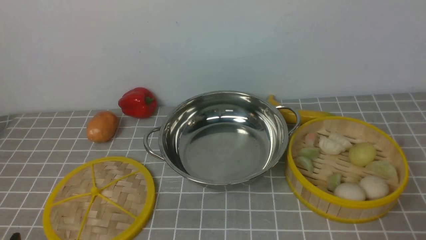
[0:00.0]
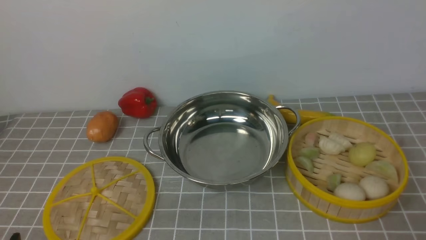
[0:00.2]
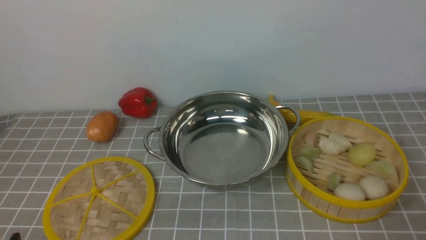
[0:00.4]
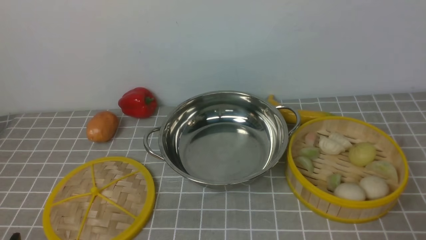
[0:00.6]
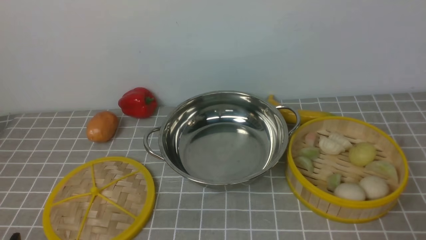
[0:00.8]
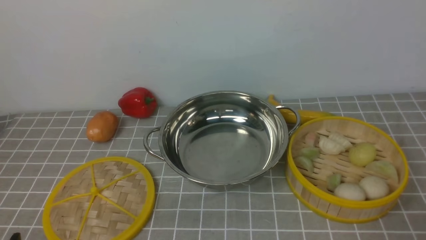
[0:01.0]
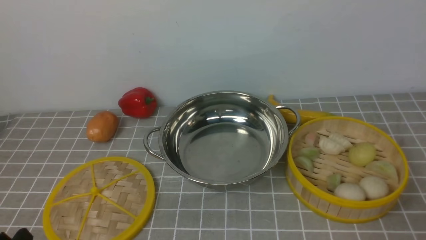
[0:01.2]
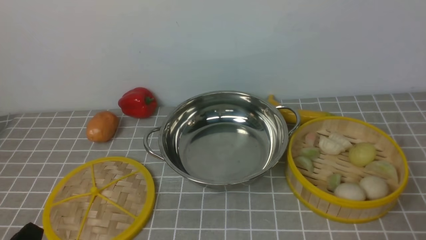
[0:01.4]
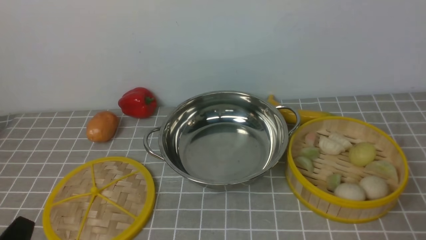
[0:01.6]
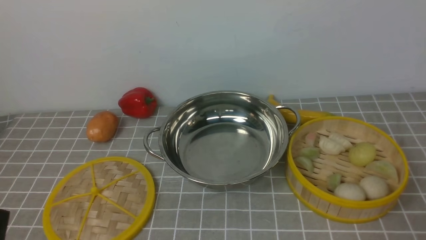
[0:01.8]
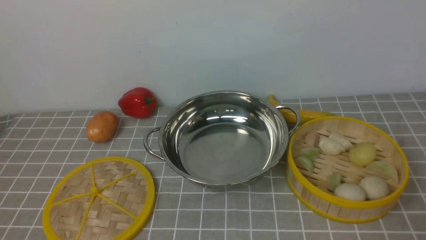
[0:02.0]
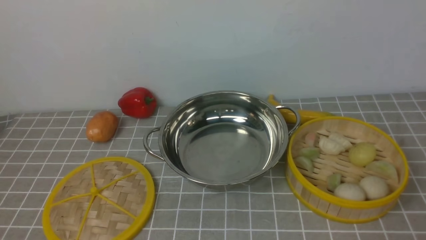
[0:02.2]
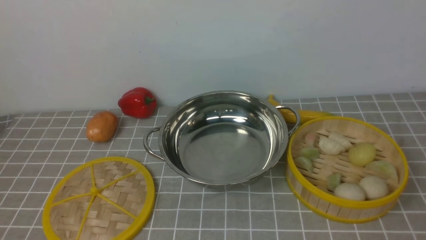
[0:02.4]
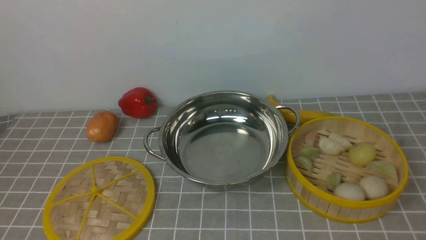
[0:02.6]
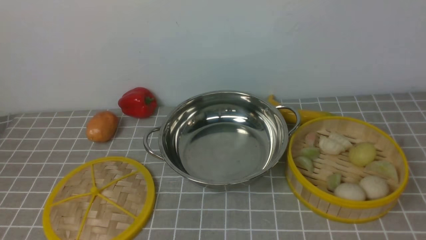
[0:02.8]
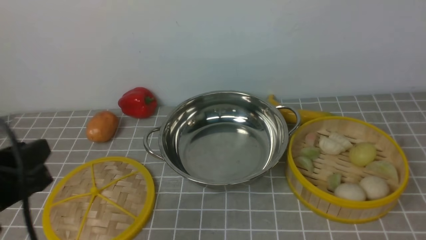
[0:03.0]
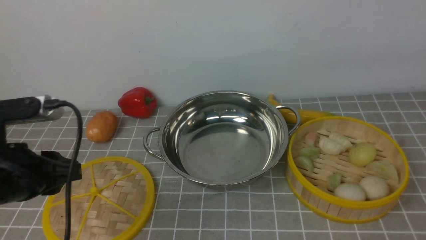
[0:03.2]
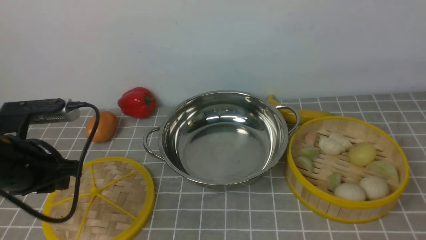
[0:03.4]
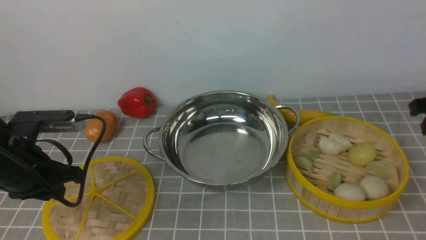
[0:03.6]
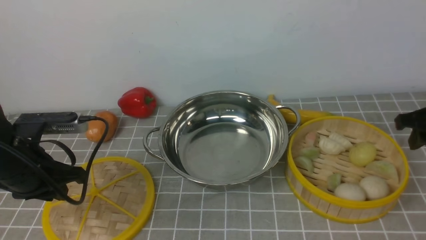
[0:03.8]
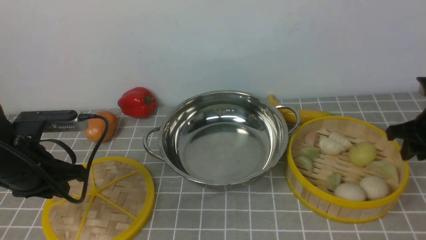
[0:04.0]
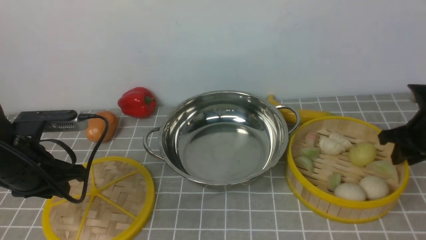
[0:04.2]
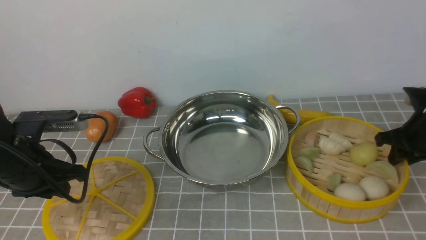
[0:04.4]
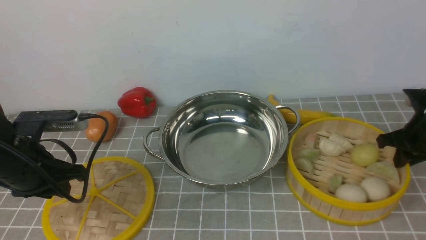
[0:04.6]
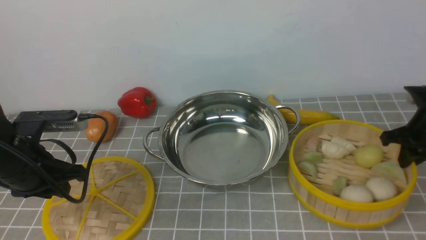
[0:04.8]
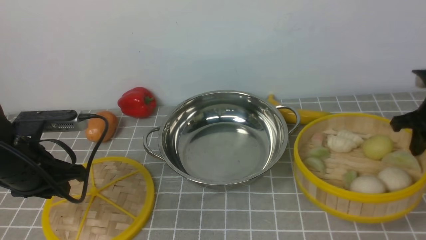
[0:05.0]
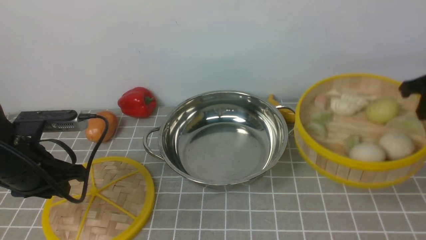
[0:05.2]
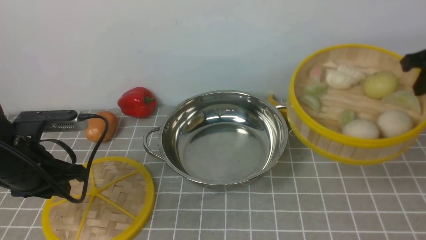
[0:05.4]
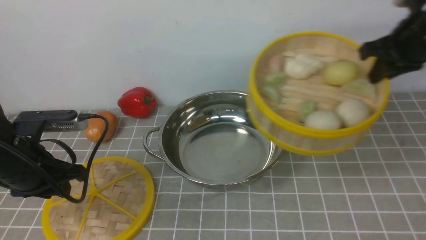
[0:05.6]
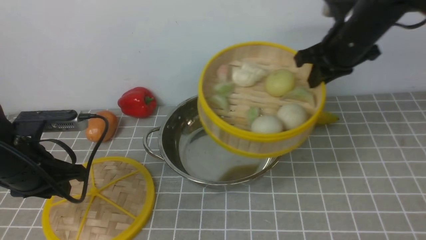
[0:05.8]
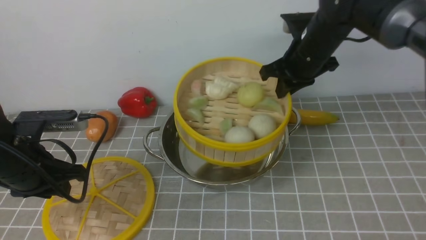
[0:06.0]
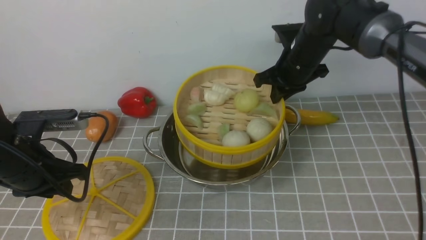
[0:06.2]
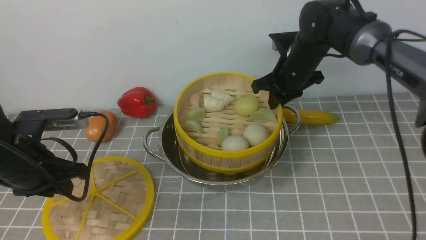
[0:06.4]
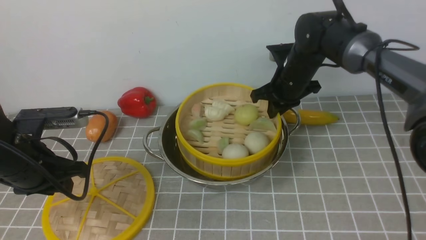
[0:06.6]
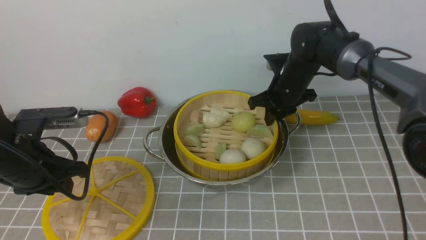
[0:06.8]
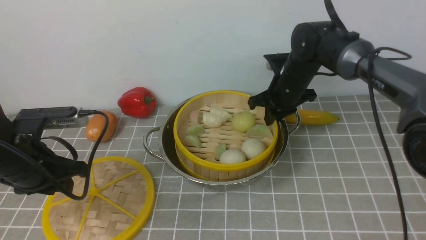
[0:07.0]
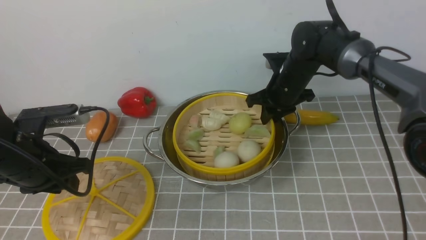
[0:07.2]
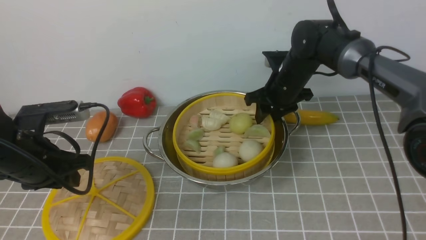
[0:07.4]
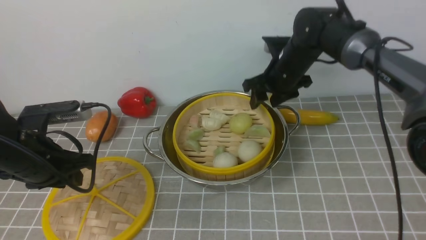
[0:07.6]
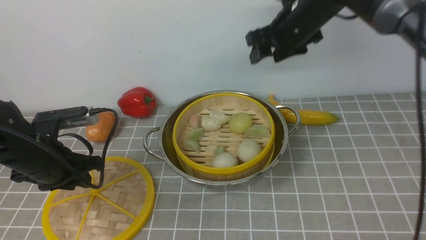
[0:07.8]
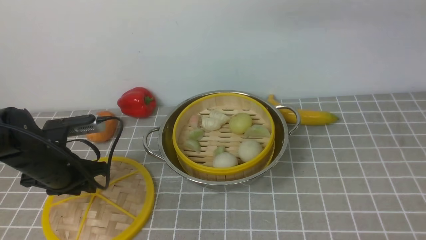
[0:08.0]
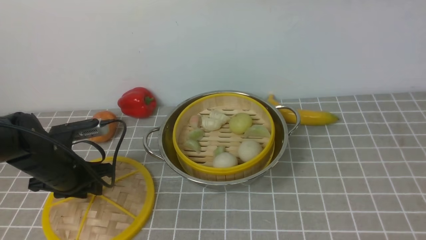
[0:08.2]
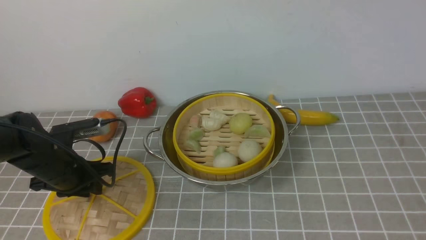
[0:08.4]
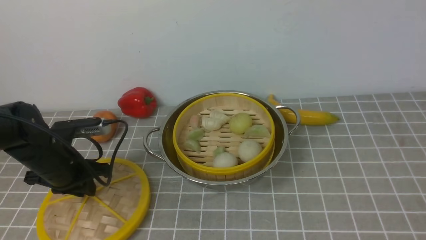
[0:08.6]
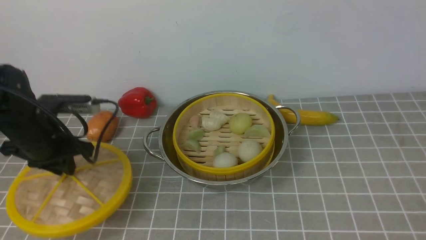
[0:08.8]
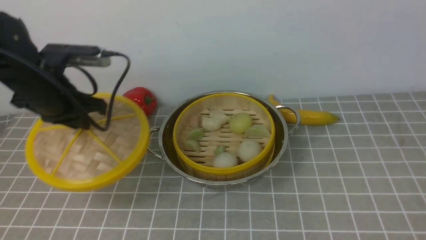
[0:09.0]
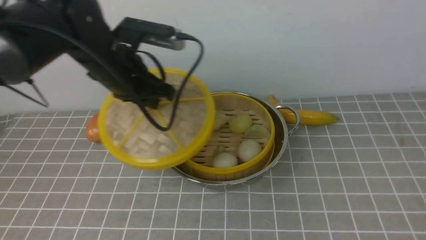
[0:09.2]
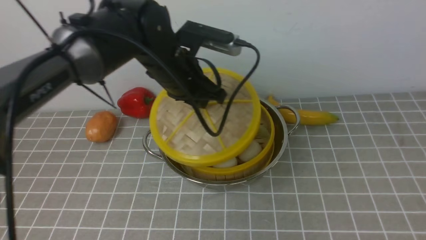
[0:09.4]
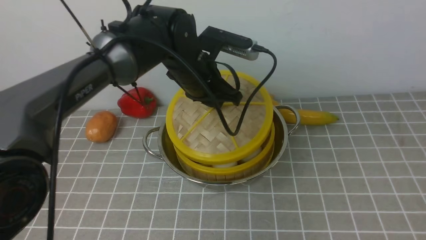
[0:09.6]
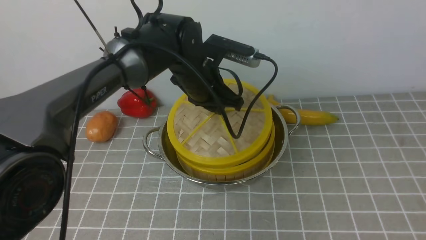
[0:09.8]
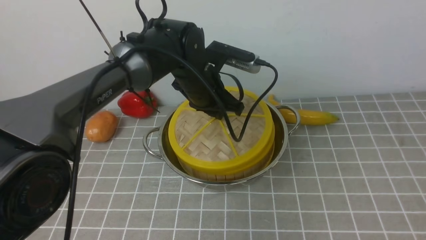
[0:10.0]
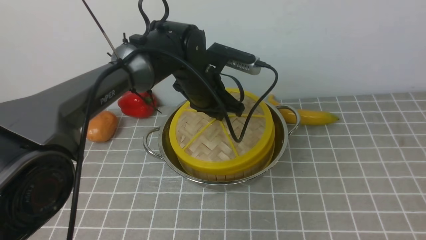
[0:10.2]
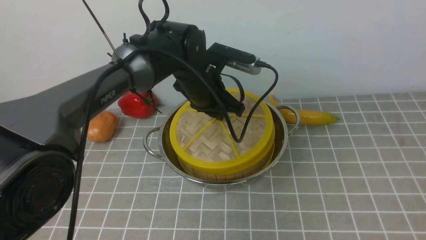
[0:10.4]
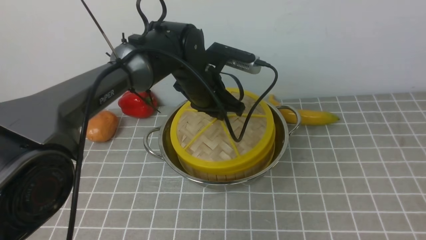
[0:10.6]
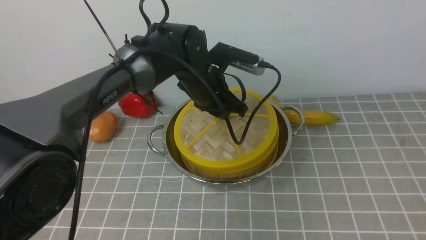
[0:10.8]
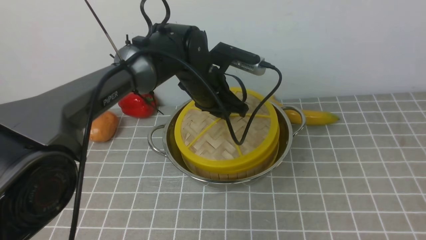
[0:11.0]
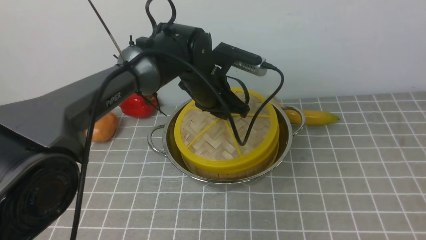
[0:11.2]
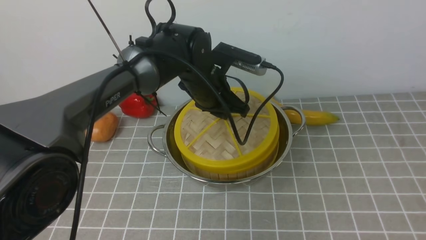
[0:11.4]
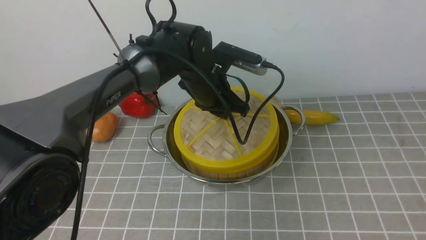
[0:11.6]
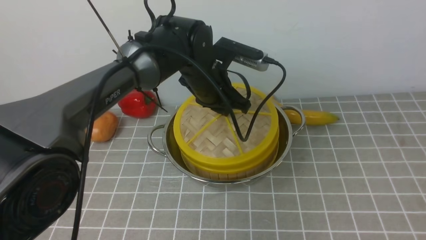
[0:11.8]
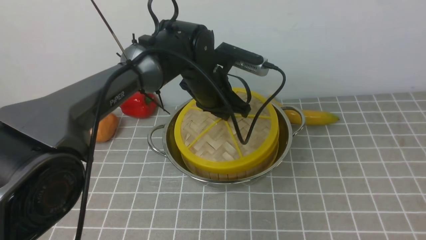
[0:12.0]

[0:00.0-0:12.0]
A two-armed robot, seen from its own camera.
Task of the whole recording: place the steamer in the pot on the grey tablecloth, and put the lid on the steamer.
Step, 0:00.0 to 0:04.8: use the right arm to lift the steamer closest to it.
Step, 0:05.0 to 0:07.6: use the right arm to put the steamer into the iron steamer pot in the middle.
0:01.6 to 0:03.0: The left gripper goes approximately 15 cm upward and forward.
0:03.0 to 0:04.4: The right gripper moves downward and forward, some 25 cm. The left gripper is displaced forward and downward by about 15 cm.
0:04.4 to 0:06.0: The right gripper is displaced to the left, upward and forward by roughly 20 cm.
0:06.0 to 0:07.6: The right gripper reaches roughly 10 cm downward, then returns, and opens.
0:07.6 to 0:09.0: The right gripper goes roughly 60 cm backward, upward and to the right. Meanwhile the left gripper shifts about 10 cm forward and upward.
0:09.0 to 0:10.4: The left gripper travels to the right by approximately 20 cm, while the right gripper travels downward by roughly 5 cm.
0:10.4 to 0:12.0: Neither gripper changes place.

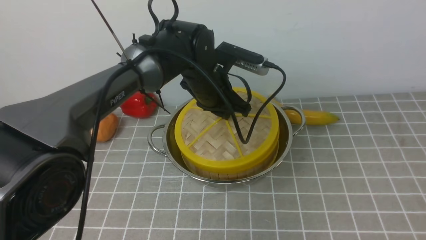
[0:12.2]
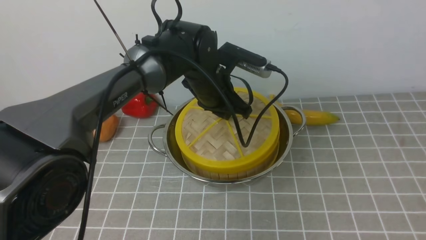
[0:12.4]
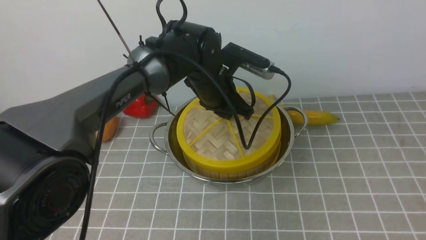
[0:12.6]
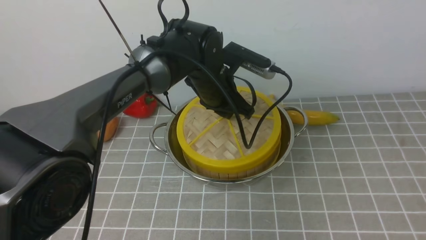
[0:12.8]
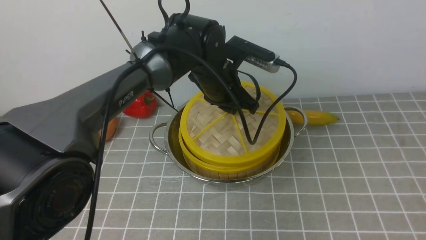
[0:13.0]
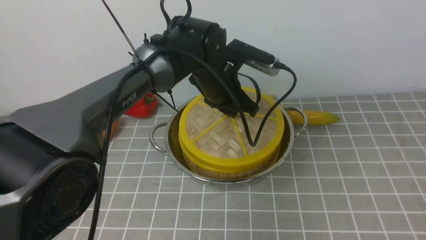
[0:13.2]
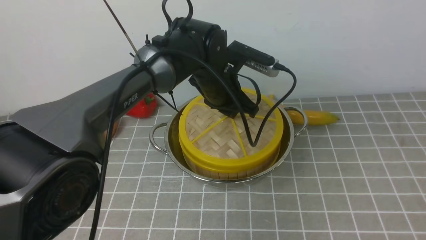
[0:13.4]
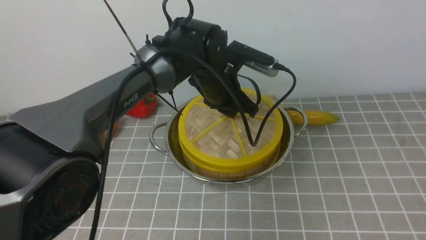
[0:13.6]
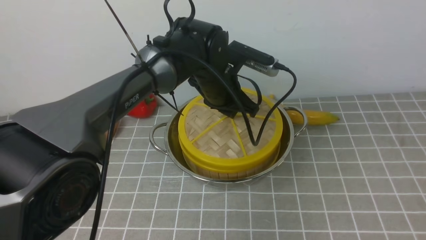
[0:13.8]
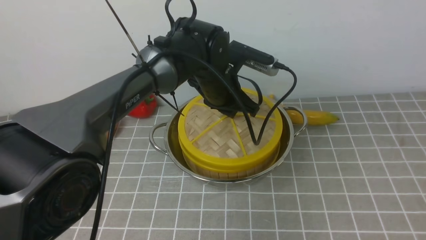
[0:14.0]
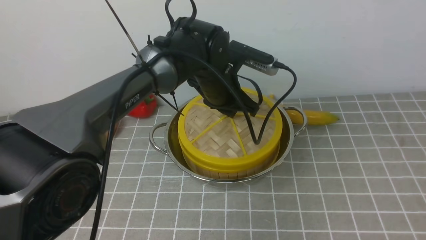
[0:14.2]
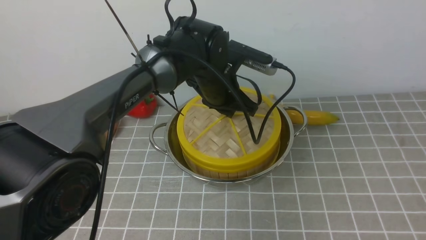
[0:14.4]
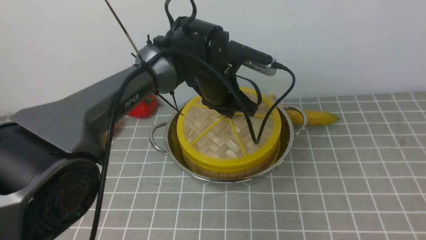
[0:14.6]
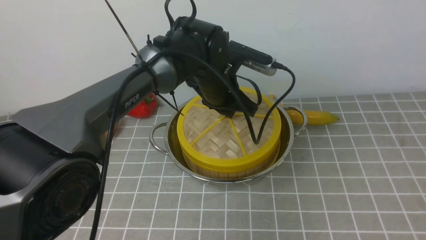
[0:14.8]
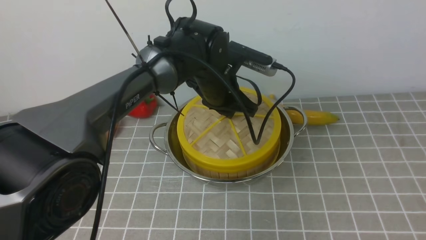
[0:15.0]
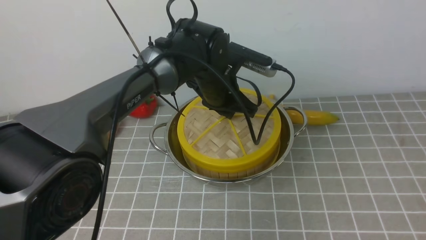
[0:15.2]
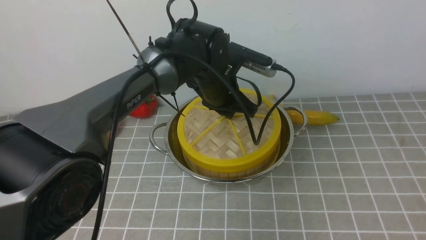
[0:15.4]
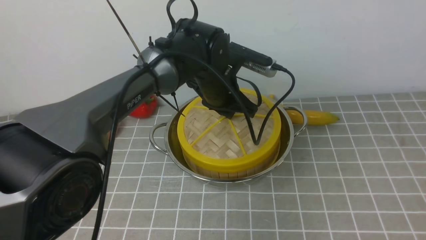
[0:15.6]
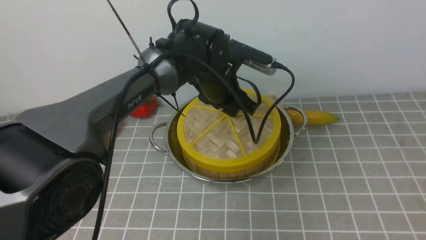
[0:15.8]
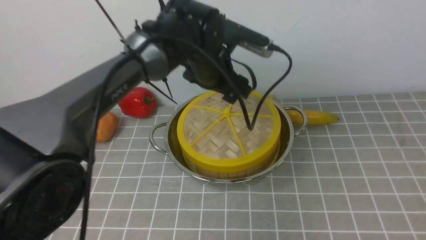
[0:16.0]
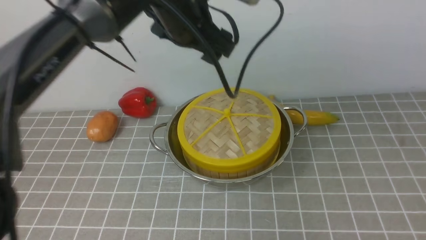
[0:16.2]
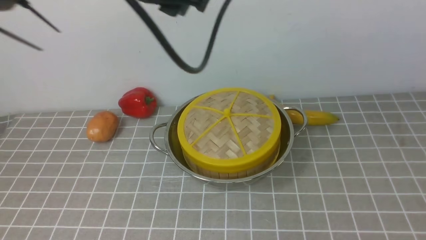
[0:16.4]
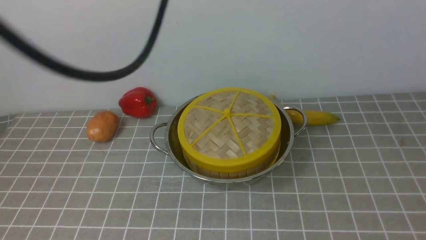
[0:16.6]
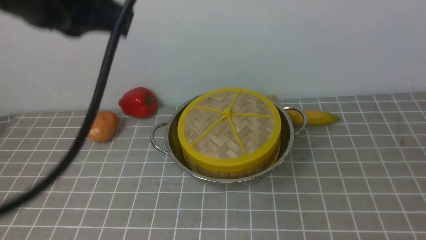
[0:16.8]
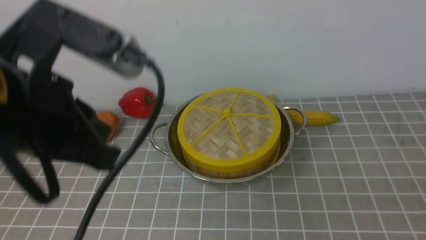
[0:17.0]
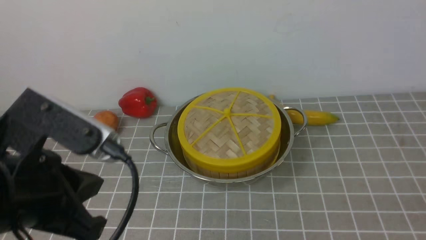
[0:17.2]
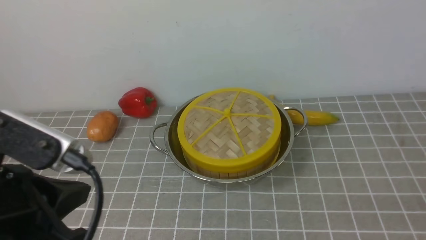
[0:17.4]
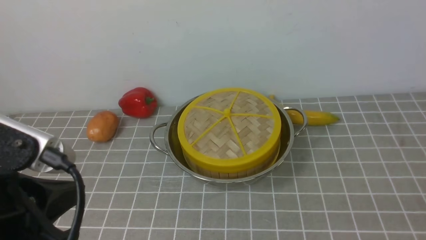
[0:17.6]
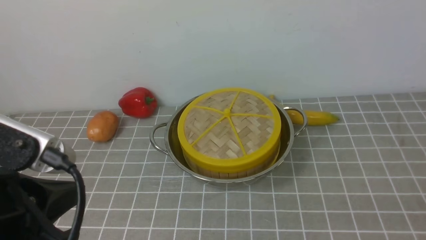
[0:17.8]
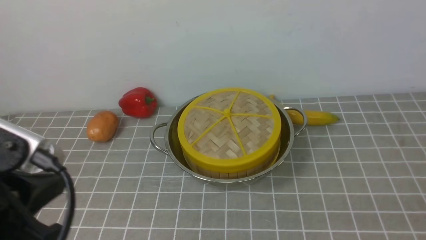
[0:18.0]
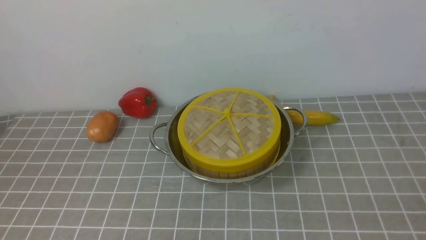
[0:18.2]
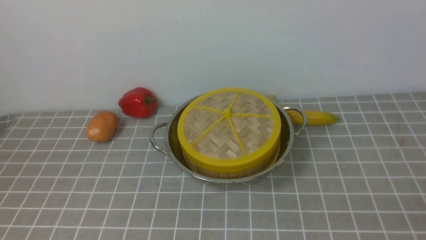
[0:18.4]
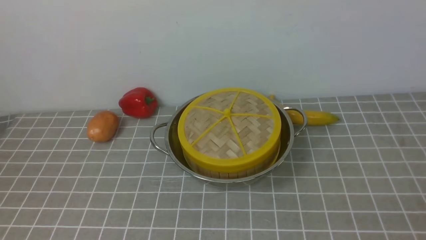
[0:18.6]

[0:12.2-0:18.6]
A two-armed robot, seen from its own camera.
Task of the whole recording: place the steamer in the pot on the grey tablecloth, and put the lid on the steamer.
Step, 0:12.2 to 0:15.8: use the left arm to place the steamer lid on the steamer.
0:12.2 to 0:15.4: Both grippers stay about where they are.
0:15.4 to 0:17.0: The left gripper is displaced backward, upward and to the left by some 35 cm, and opens, then closes again. The right gripper heads downward, covering about 20 cm, and closes up.
0:17.0 to 0:18.6: The left gripper is displaced backward, to the left and downward by about 20 cm.
